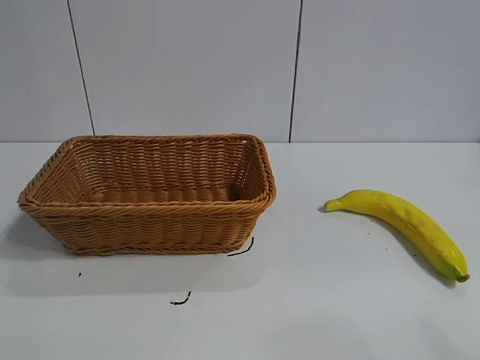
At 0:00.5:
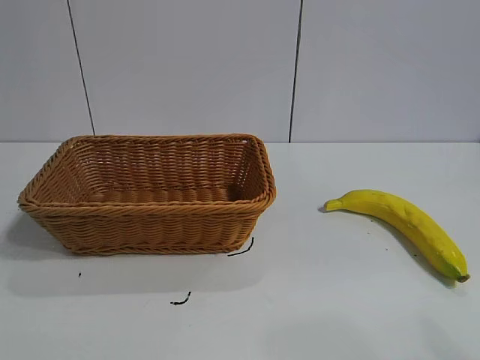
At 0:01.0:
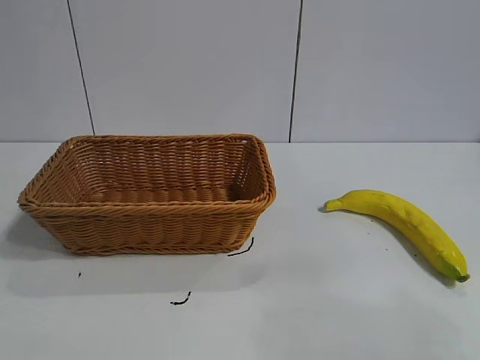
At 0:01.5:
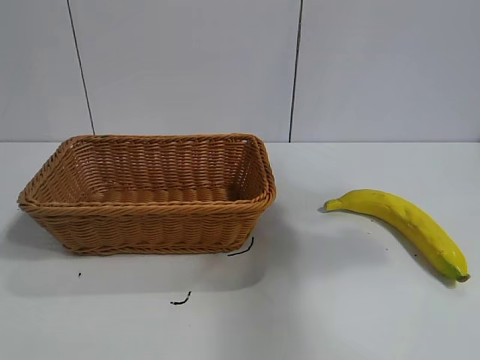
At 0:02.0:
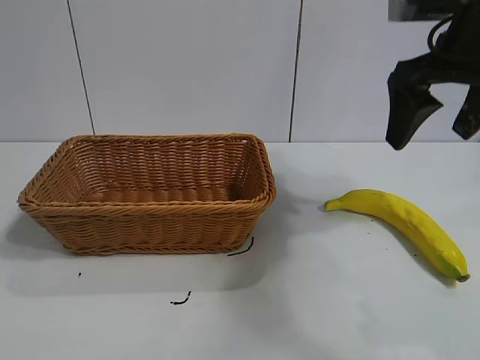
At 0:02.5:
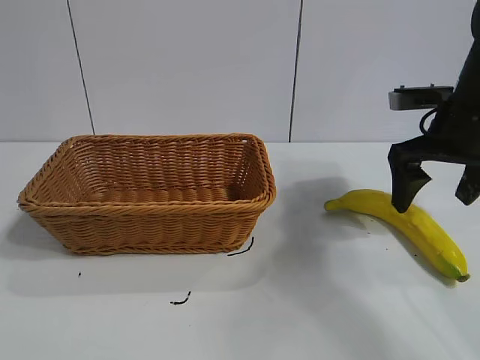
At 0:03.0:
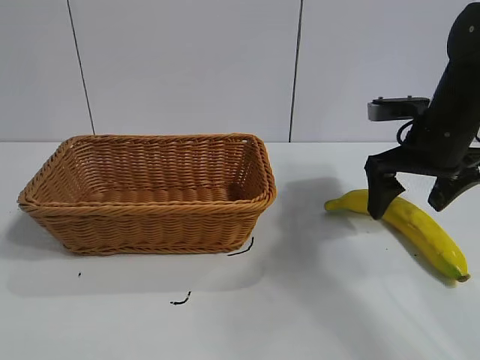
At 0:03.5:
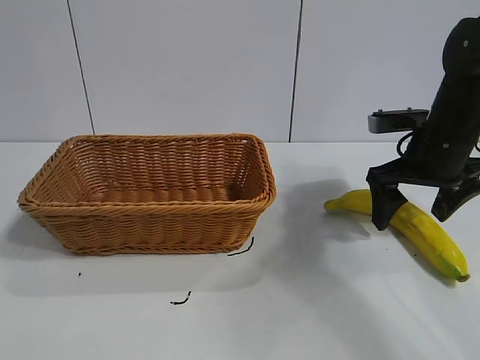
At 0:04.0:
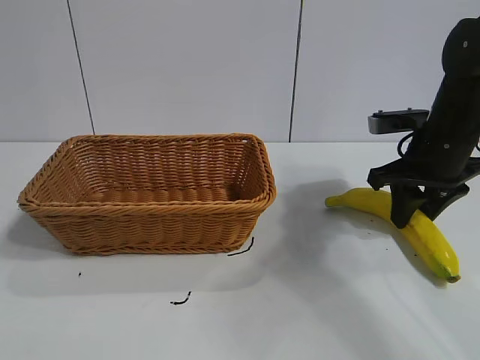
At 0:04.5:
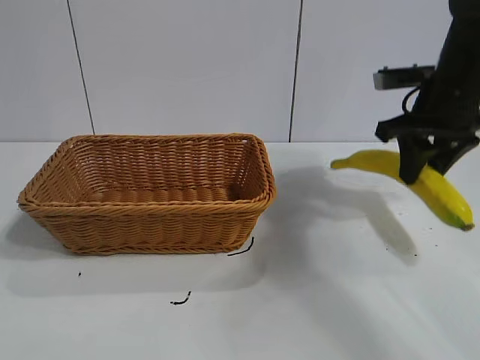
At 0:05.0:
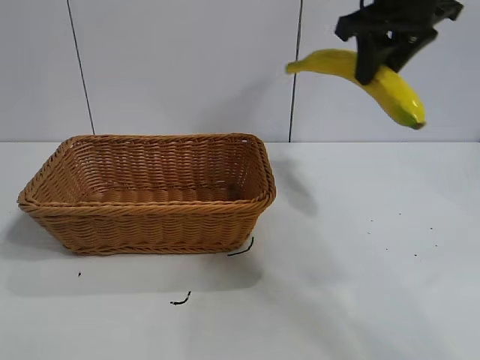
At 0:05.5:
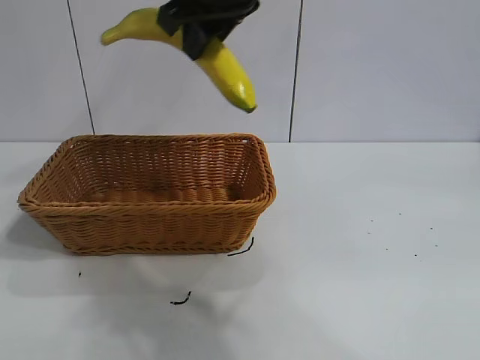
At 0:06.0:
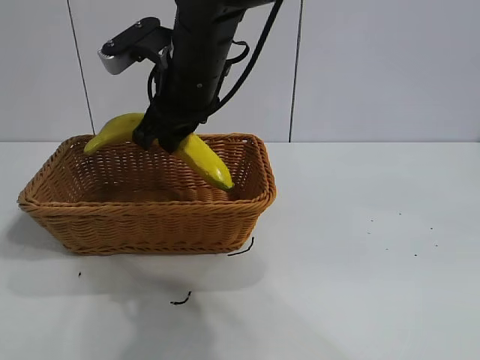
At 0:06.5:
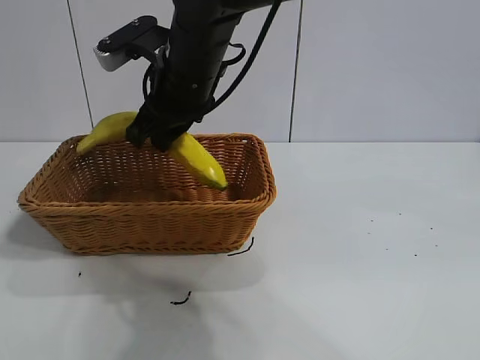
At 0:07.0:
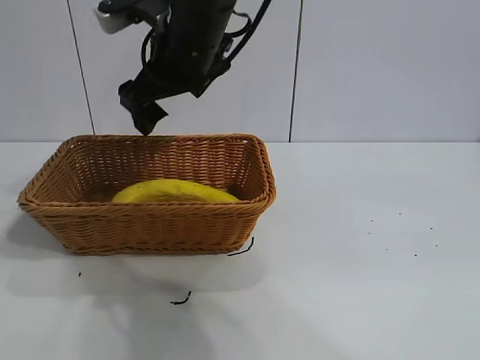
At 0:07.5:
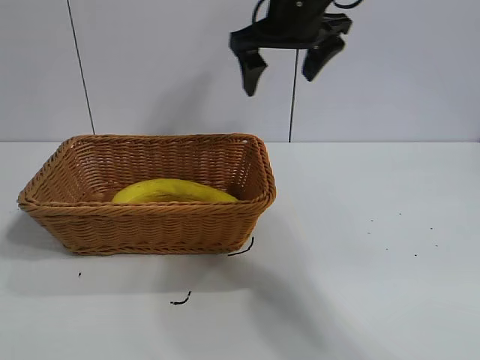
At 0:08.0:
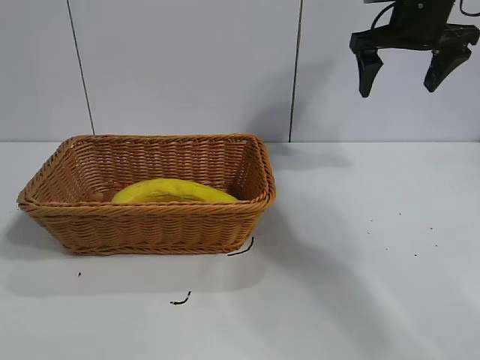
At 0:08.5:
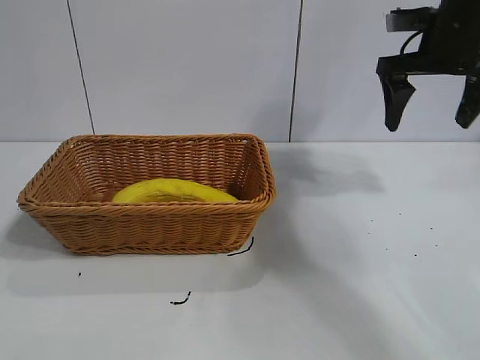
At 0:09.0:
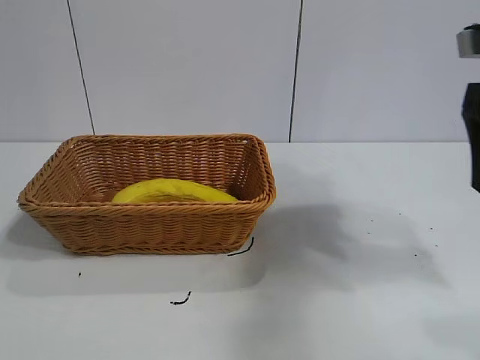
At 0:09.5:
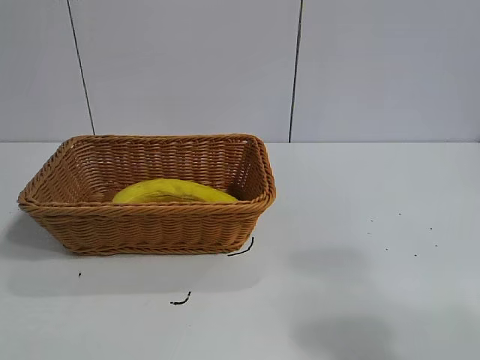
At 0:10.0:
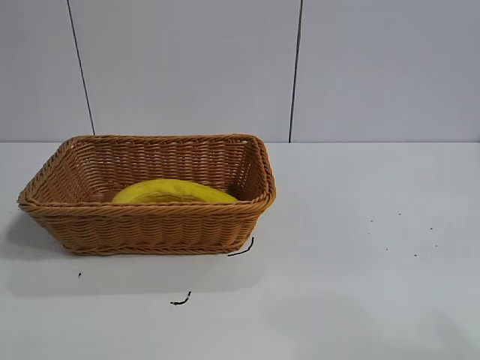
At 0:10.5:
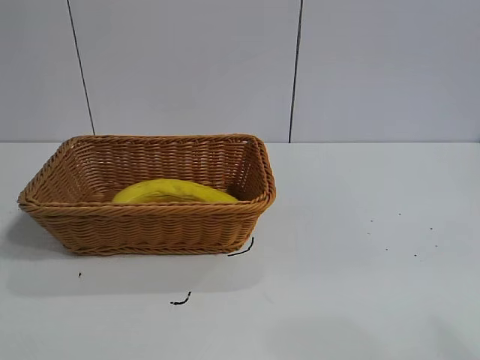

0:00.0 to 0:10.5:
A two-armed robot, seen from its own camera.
Task of the whole recording: pick up the banana and put it into the basket.
Step, 0:02.0 to 0:04.0: Grasp the banana with right gripper.
Step, 0:04.5 to 0:06.5: Place the banana in the basket with right gripper.
